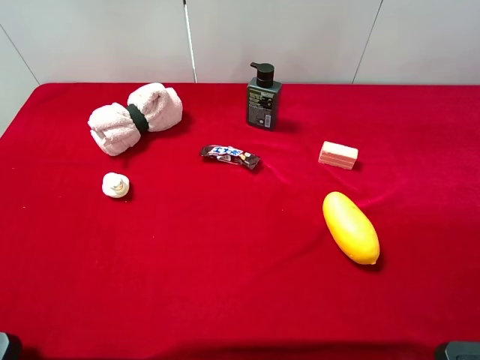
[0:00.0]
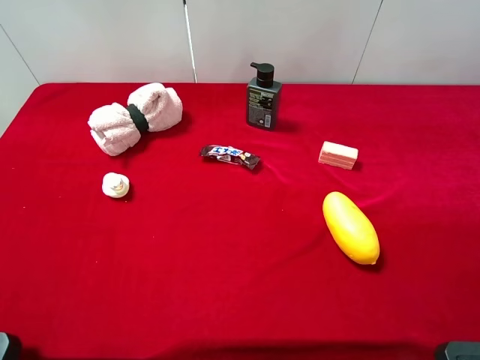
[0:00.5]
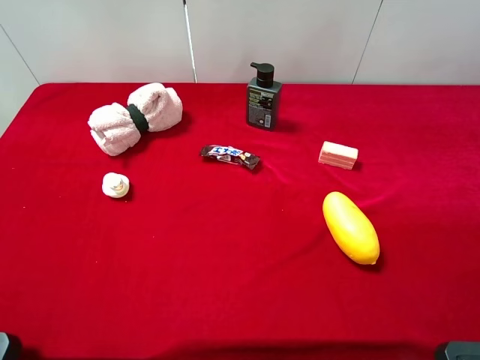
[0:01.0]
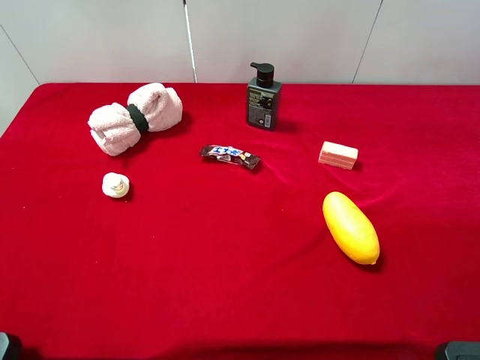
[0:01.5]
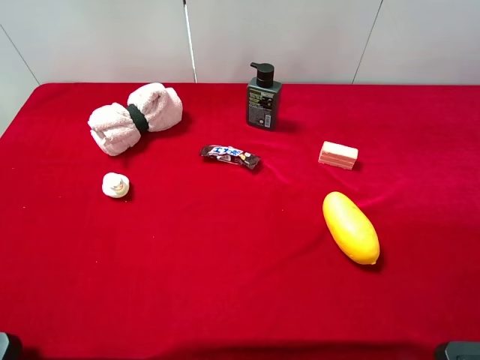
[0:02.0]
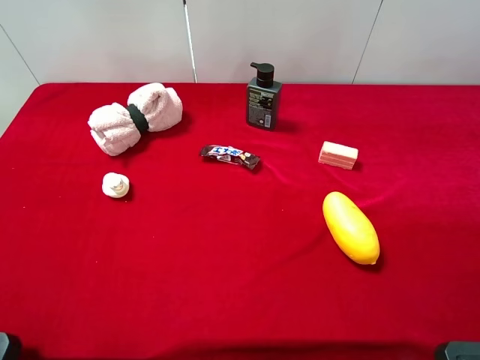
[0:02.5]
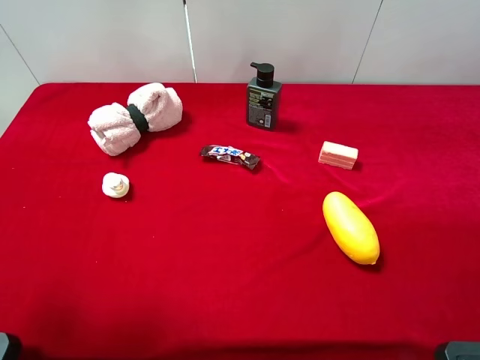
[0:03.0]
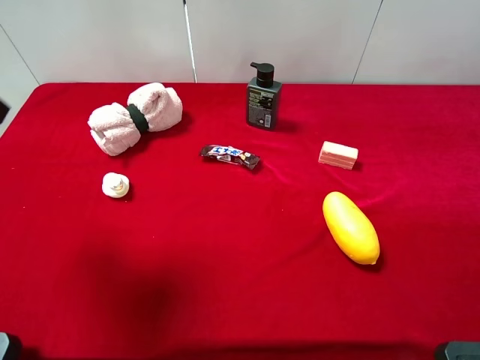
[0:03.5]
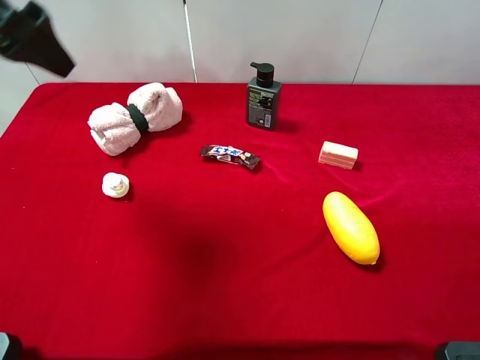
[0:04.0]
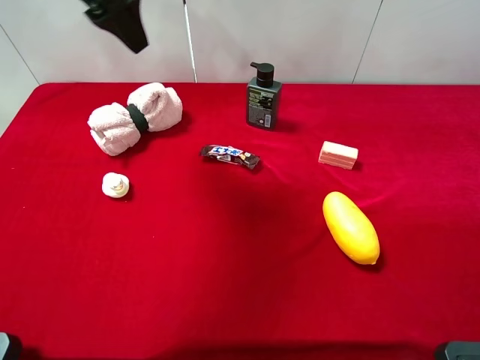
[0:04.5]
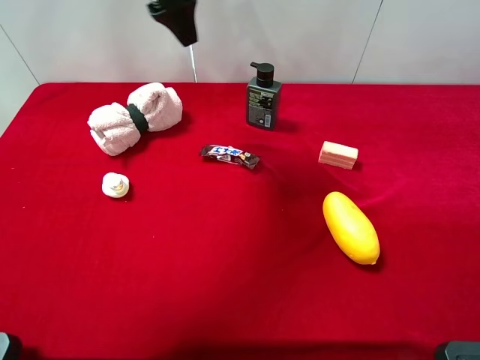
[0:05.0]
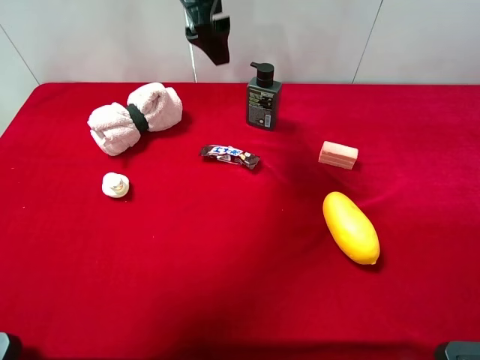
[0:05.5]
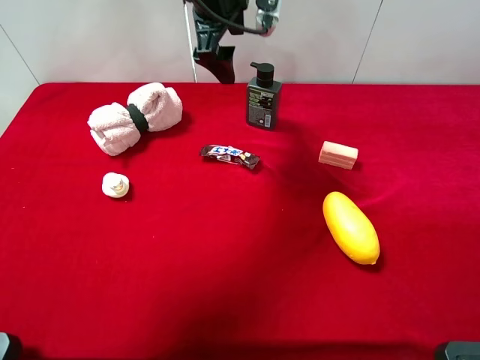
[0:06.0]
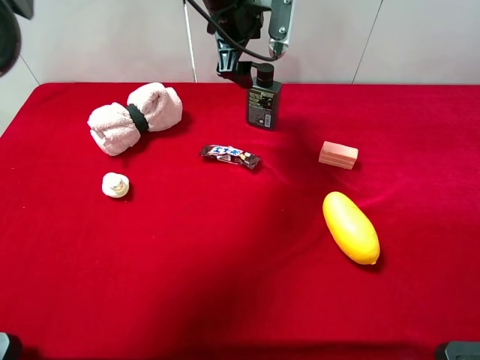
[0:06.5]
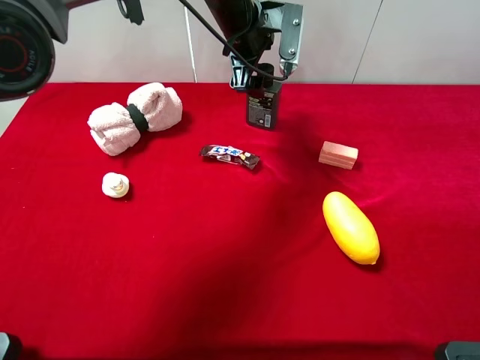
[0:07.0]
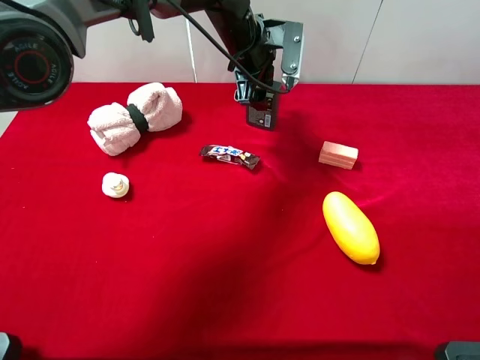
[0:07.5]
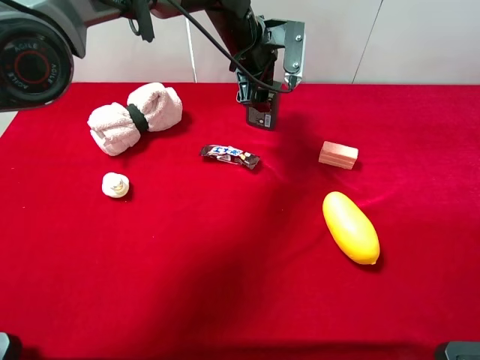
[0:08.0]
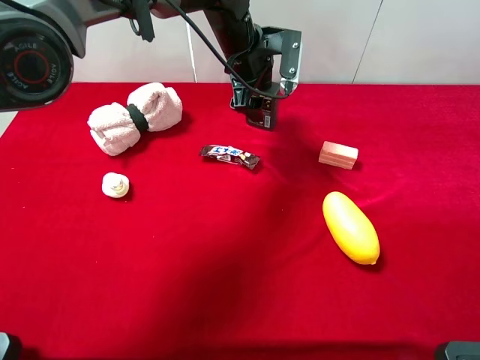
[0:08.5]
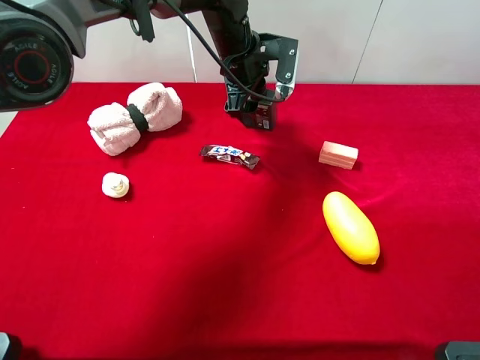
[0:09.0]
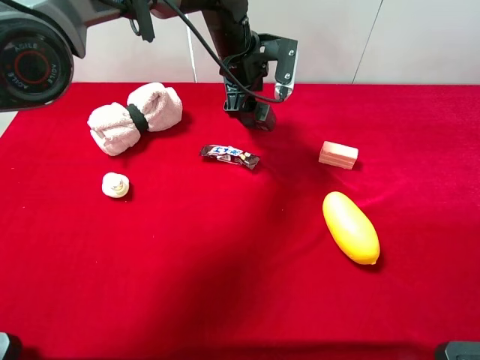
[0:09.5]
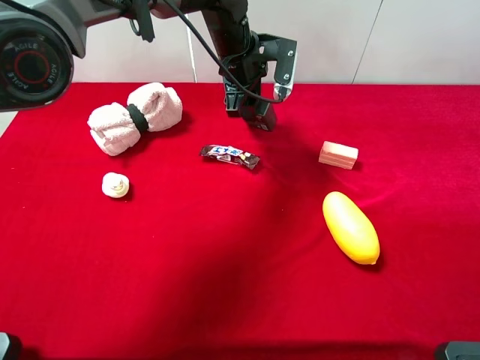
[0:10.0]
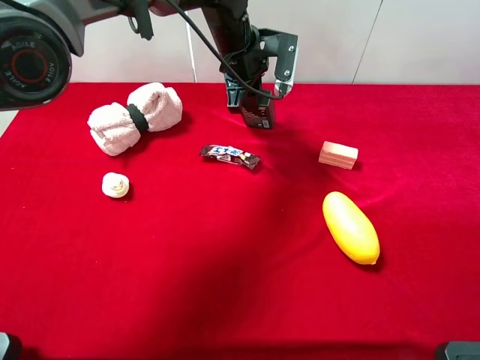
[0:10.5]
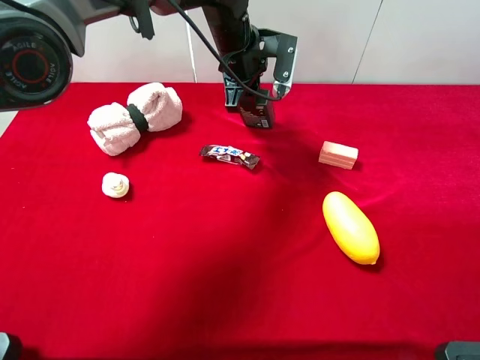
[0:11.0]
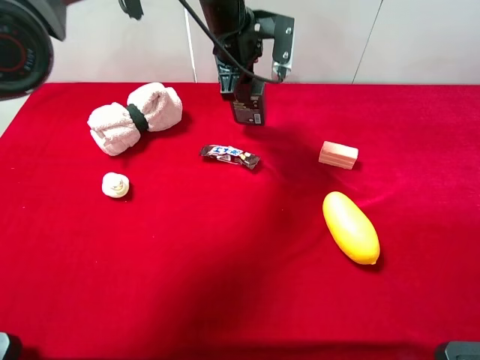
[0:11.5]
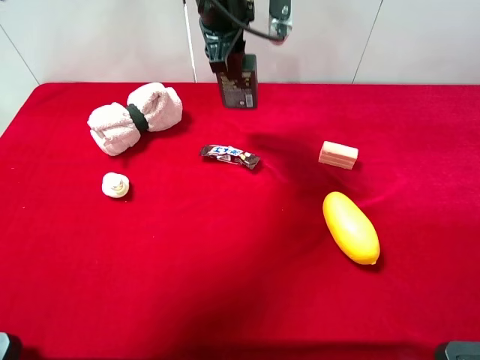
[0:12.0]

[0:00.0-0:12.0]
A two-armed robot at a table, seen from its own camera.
Task of the whole recording: the gripper move the object.
Step, 0:00.0 to 0:10.5: Grasp the hard facial cleanser with the left gripper.
0:00.0 to 0:02.0: Neither gripper changes place.
0:02.0 to 0:04.0: The left gripper travels forward by about 25 cm.
0:04.0 to 0:06.0: The left gripper moves to the right and forward, about 25 cm.
0:06.0 to 0:08.0: The left gripper moves downward, some 10 cm.
0:08.0 to 0:10.0: The left gripper closes its fingers.
0:10.0 to 0:12.0: The left gripper shifts about 10 cm upward.

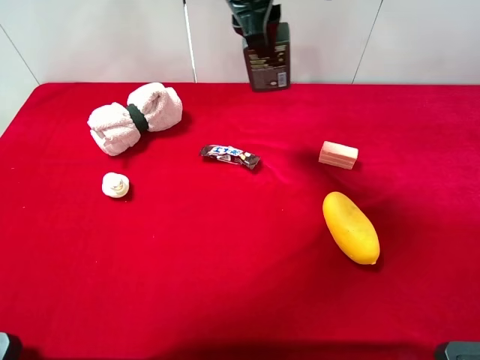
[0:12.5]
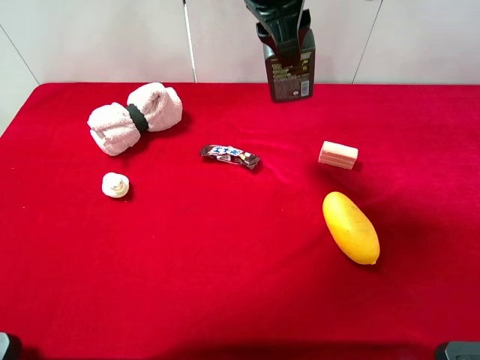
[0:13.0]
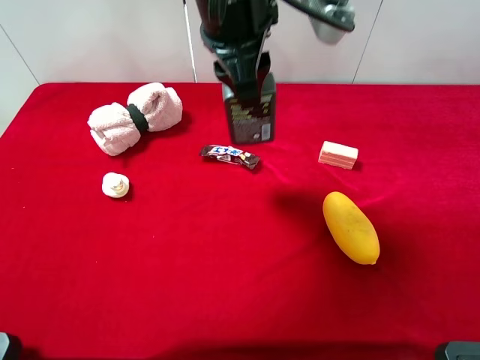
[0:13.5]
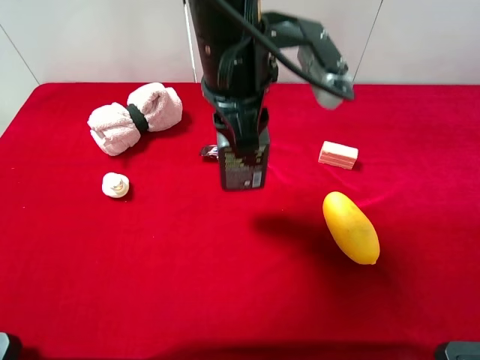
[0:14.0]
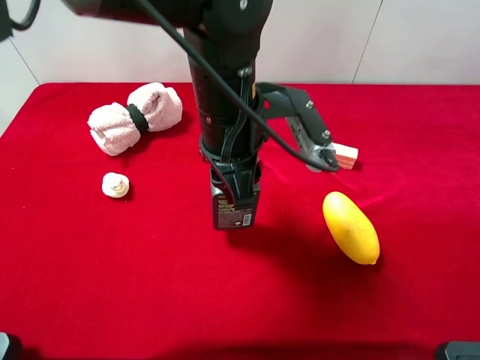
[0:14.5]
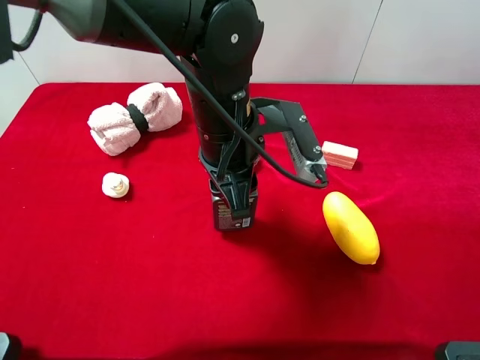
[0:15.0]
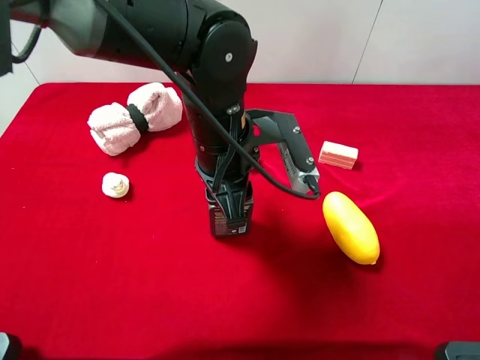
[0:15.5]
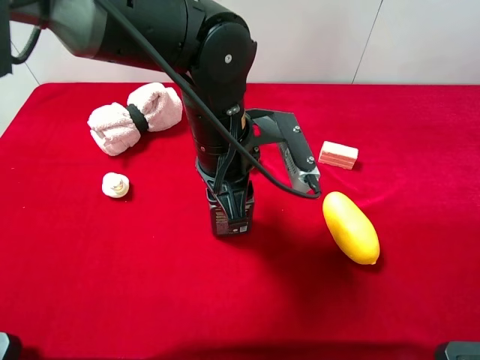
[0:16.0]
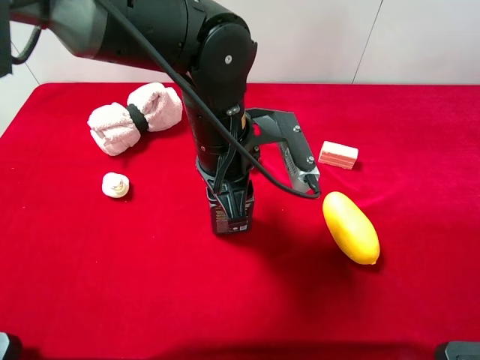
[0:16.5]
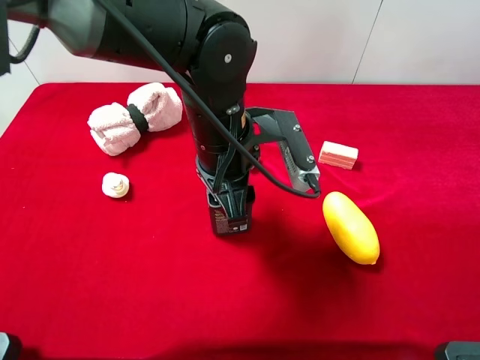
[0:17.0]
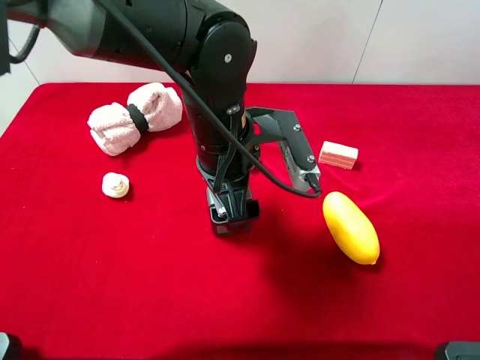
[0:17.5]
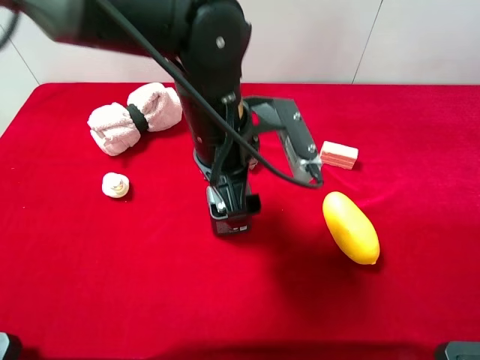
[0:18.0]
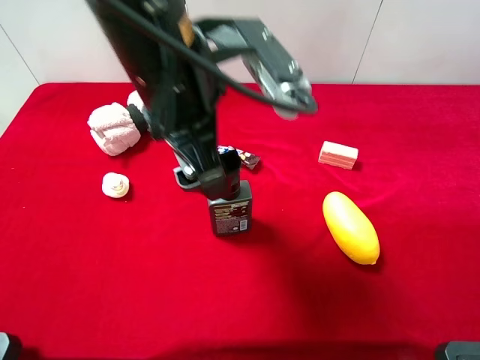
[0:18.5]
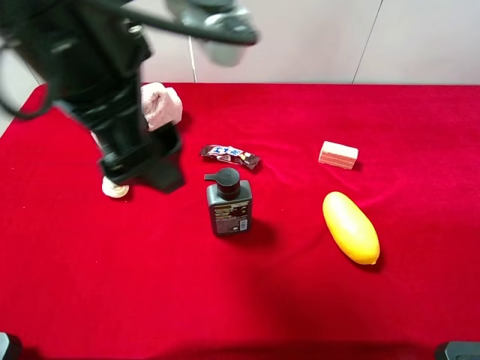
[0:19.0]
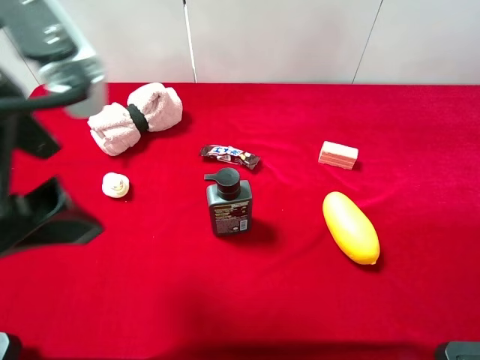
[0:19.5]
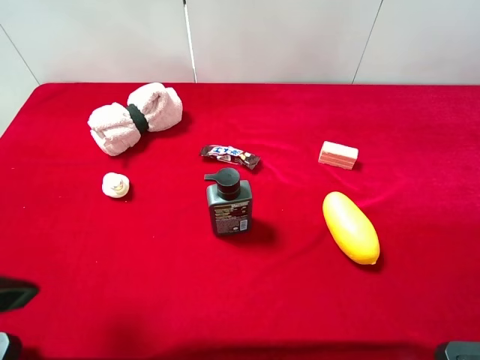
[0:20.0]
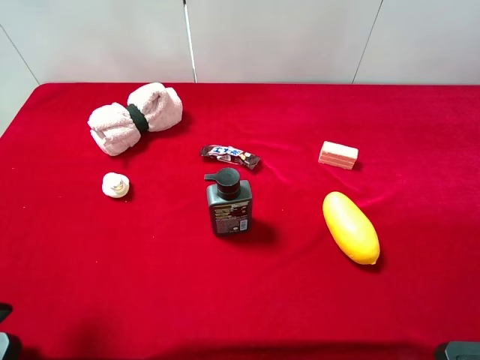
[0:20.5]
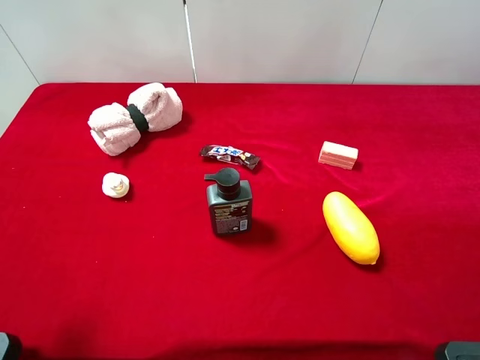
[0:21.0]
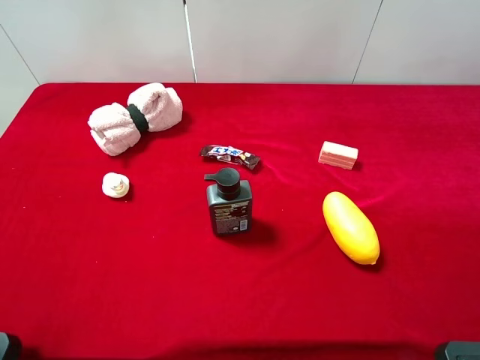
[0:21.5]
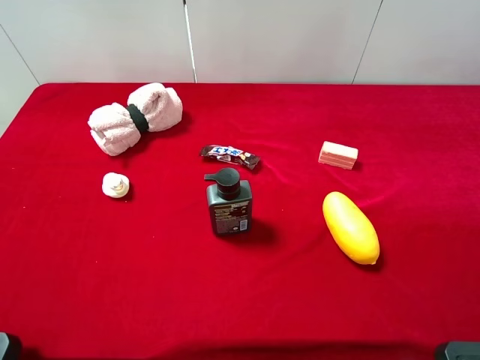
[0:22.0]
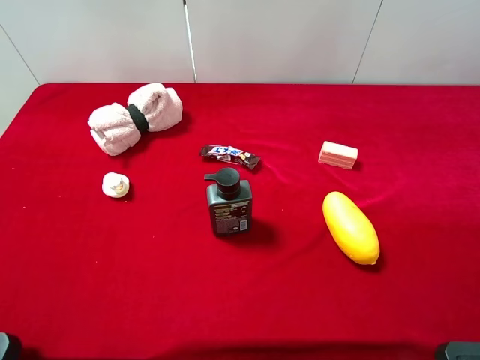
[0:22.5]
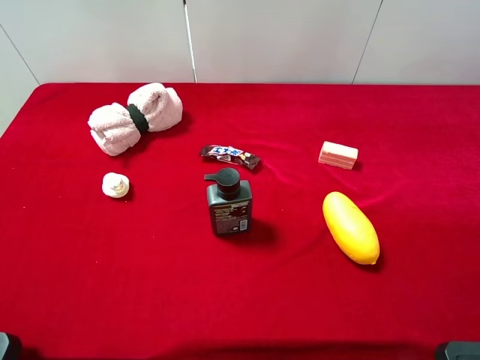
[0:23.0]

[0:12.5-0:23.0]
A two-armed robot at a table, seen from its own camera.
Task of the whole recording: the gripper move the object.
Step, 0:12.5 to 0:18.5: Place the hard facial cleanser on the table with the left gripper.
0:12.5 to 0:14.5: The left gripper shifts roughly 15 cm backward and downward.
0:14.5 to 0:16.5: The grippers make only small movements.
0:16.5 to 0:19.0: The left gripper goes roughly 20 cm upward, to the left and backward, and opens up.
0:19.0 to 0:21.0: The left gripper moves to the left and backward, approximately 20 cm.
